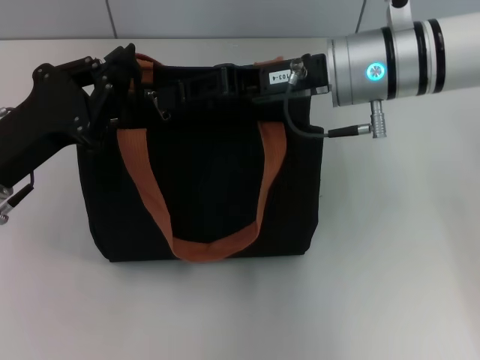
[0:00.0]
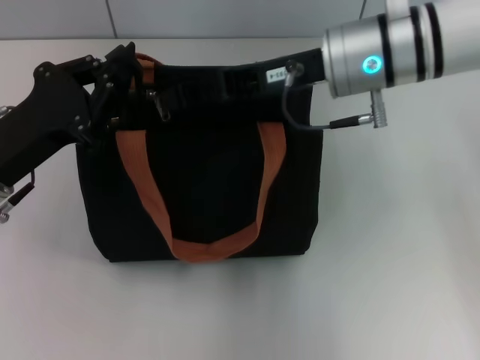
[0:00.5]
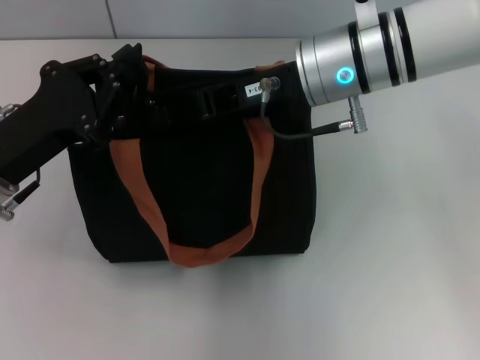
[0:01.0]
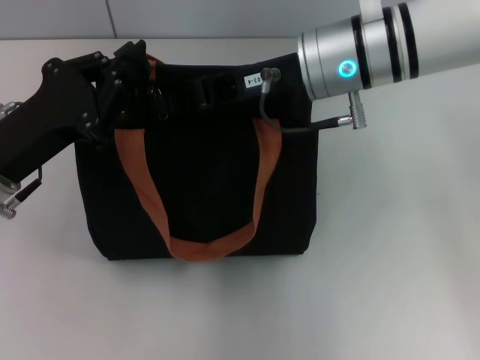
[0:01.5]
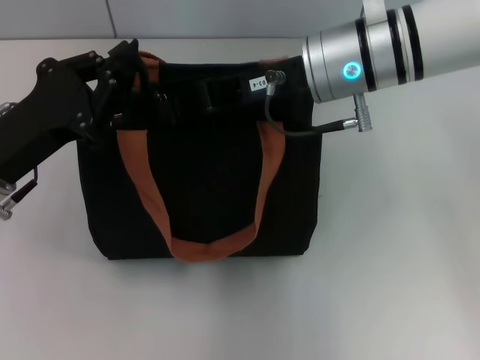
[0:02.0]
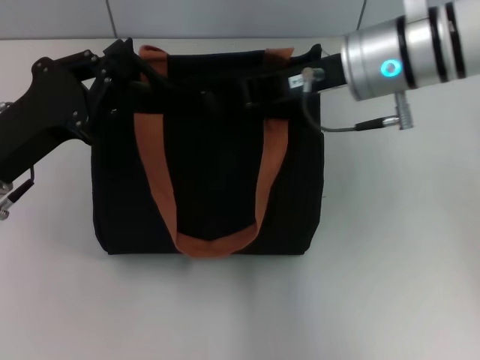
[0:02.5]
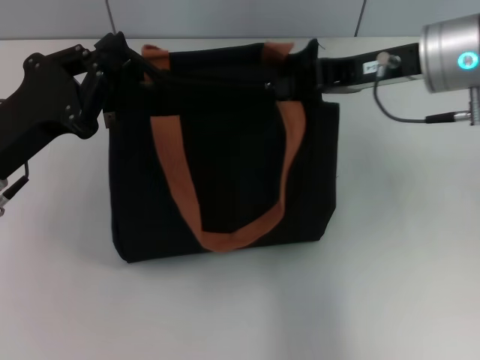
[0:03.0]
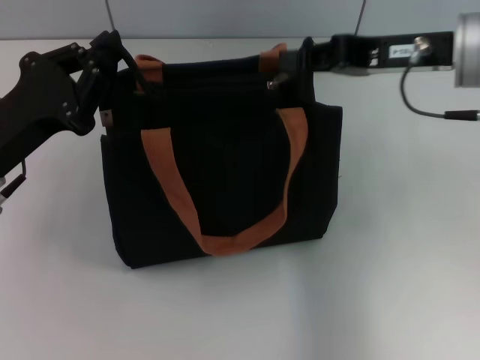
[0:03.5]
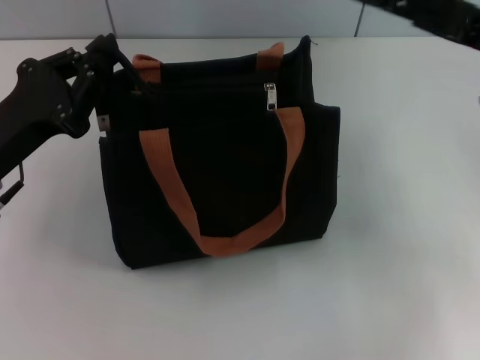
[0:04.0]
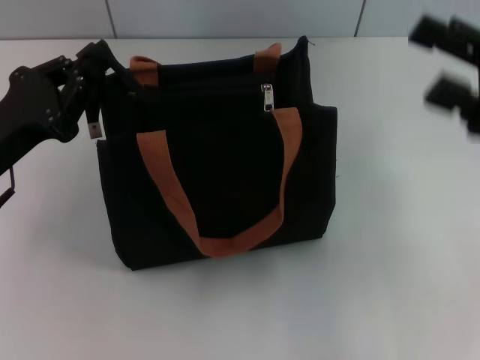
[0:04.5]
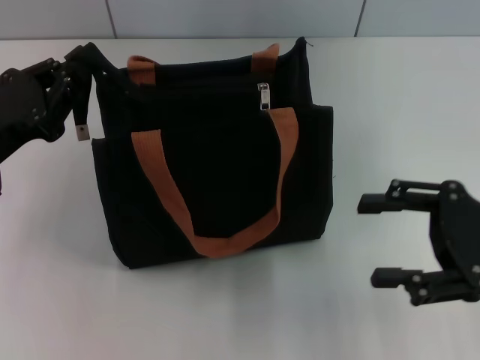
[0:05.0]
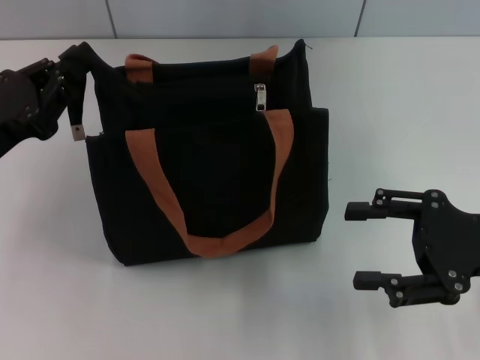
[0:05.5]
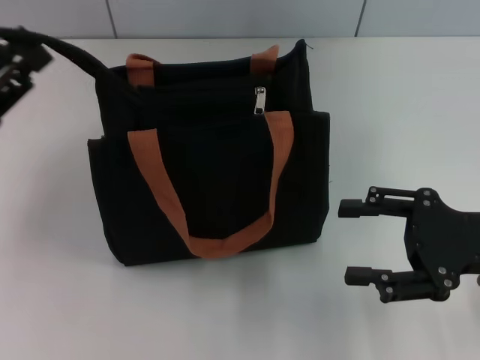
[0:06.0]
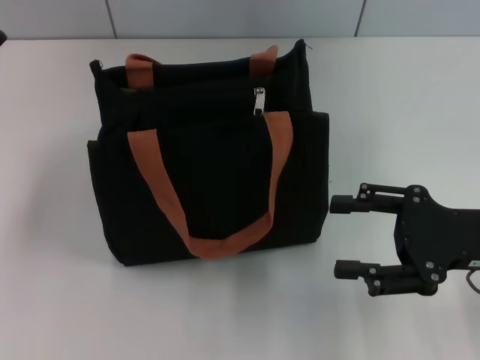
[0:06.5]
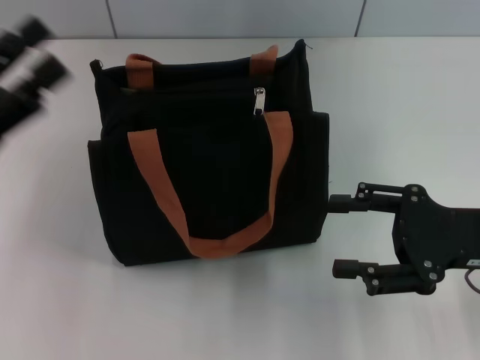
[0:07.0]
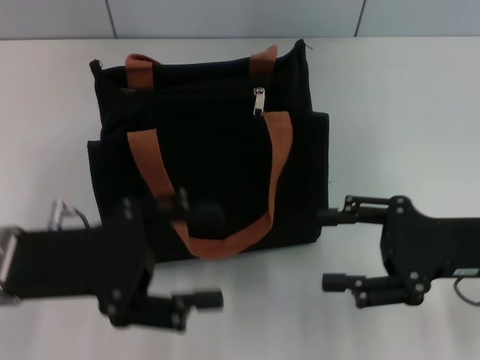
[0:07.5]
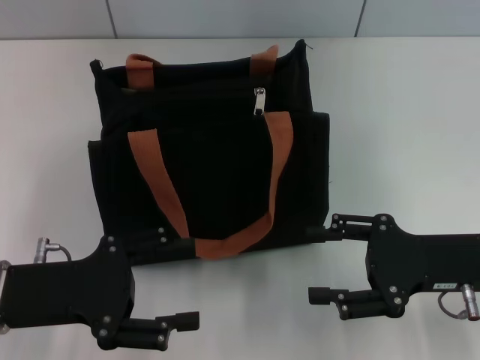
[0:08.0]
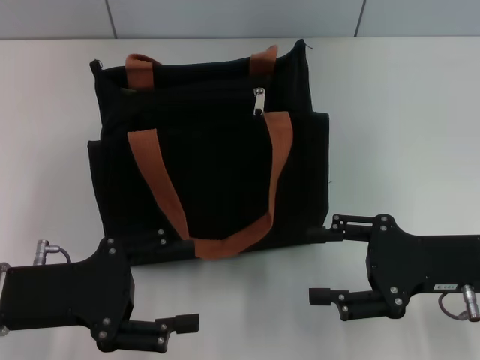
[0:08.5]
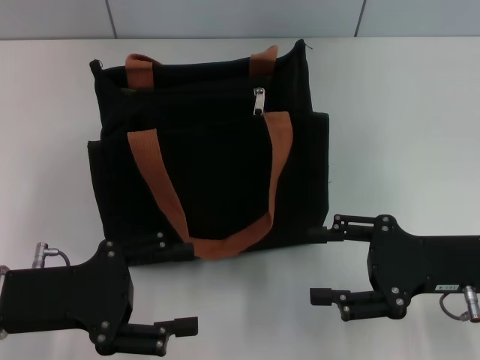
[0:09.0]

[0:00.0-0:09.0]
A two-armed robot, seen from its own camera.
Step, 0:00.0 to 0:03.5: Pull up the zipper with your right hand.
Step, 0:04.0 to 0:06.0: Grab the zipper with your left hand.
0:00.0 to 0:02.0: The right gripper closes its fingers.
0:02.0 to 0:04.5: The right gripper goes roughly 20 cm to the right and backward, and opens up.
0:04.5 to 0:07.0: The left gripper opens, while the right gripper moves downward, approximately 5 cm.
0:07.0 to 0:09.0: The left gripper moves downward, approximately 5 cm.
